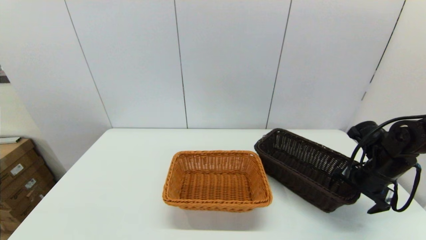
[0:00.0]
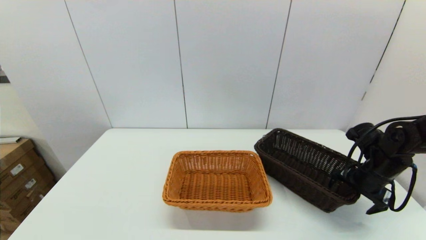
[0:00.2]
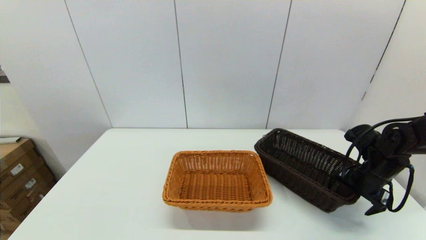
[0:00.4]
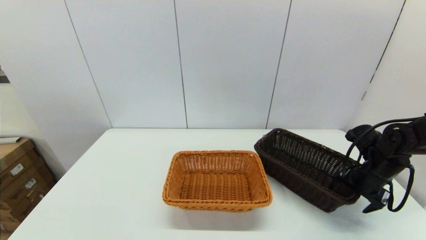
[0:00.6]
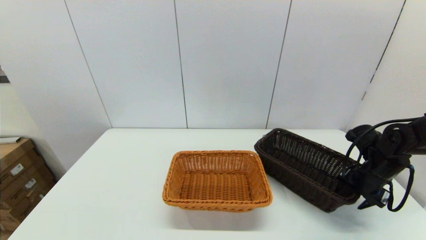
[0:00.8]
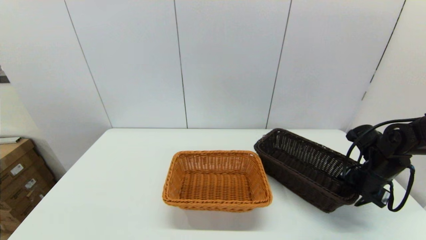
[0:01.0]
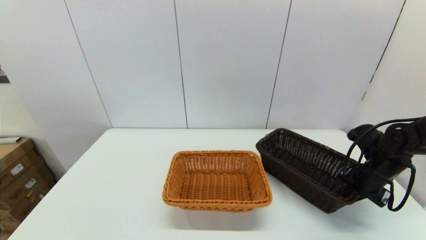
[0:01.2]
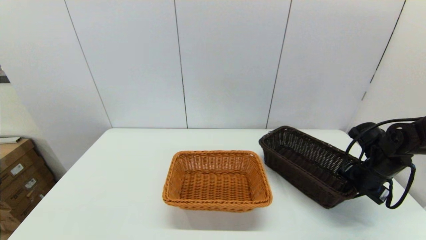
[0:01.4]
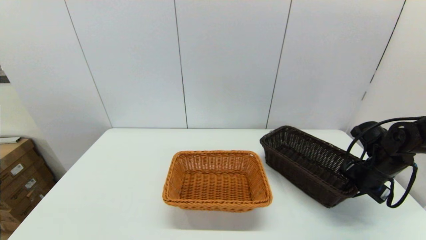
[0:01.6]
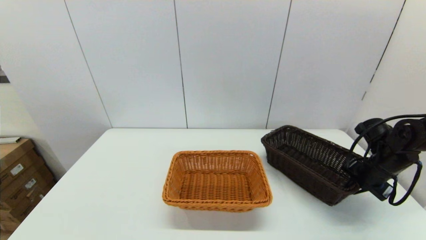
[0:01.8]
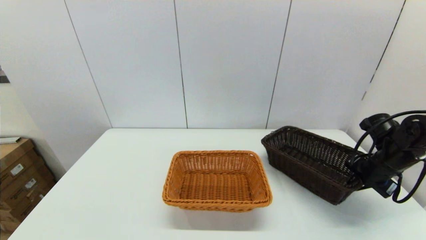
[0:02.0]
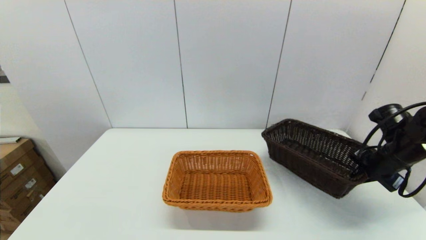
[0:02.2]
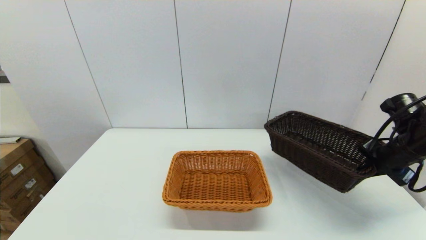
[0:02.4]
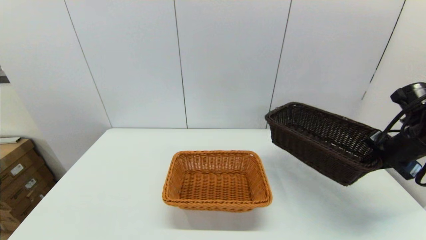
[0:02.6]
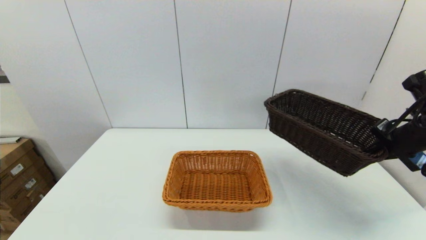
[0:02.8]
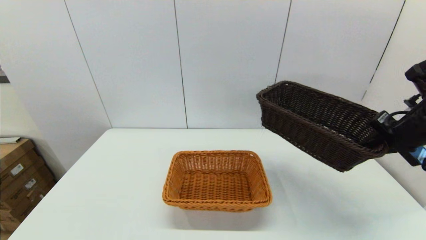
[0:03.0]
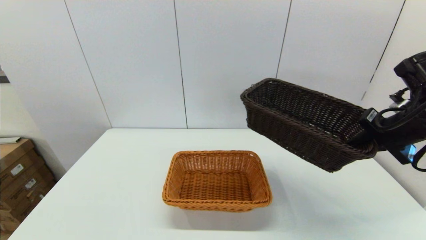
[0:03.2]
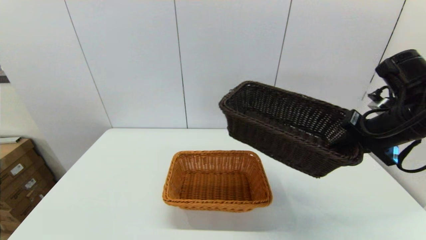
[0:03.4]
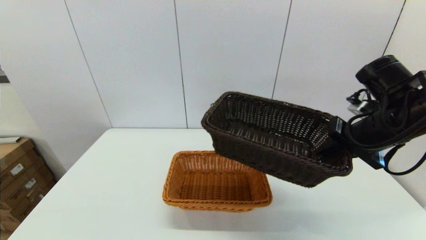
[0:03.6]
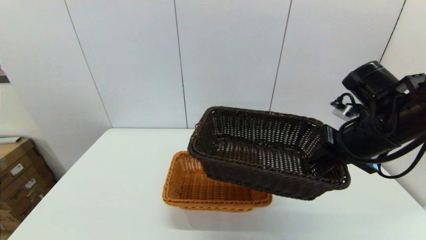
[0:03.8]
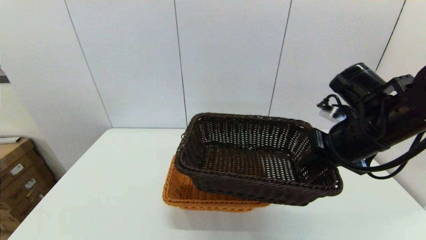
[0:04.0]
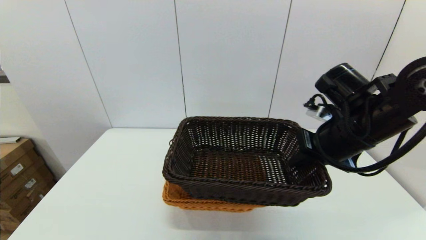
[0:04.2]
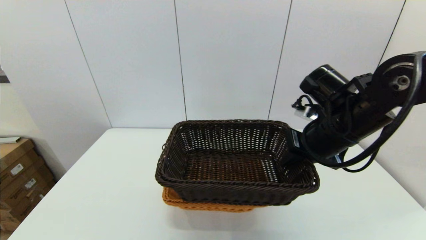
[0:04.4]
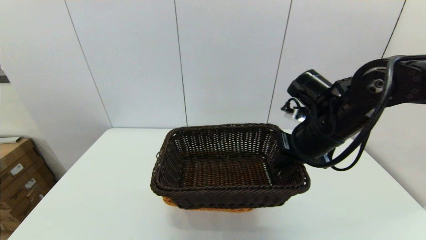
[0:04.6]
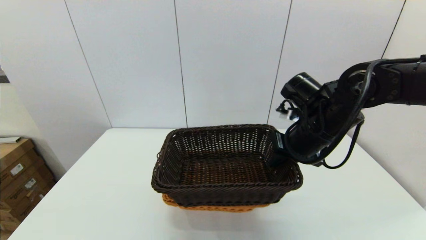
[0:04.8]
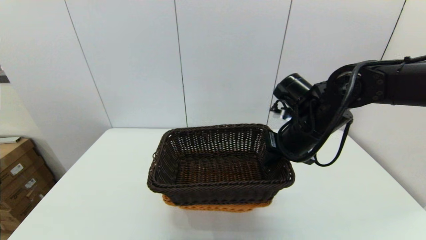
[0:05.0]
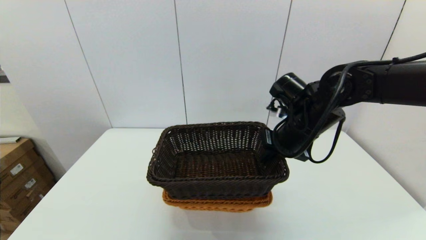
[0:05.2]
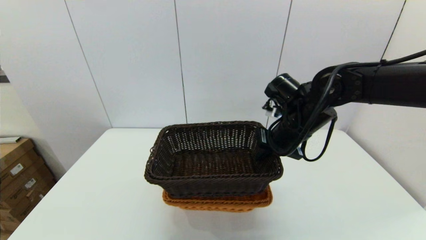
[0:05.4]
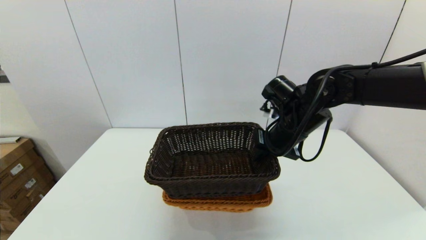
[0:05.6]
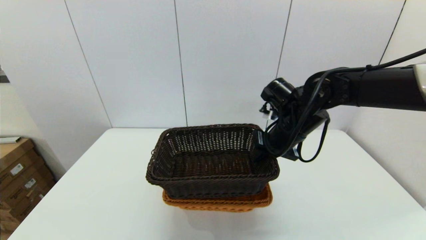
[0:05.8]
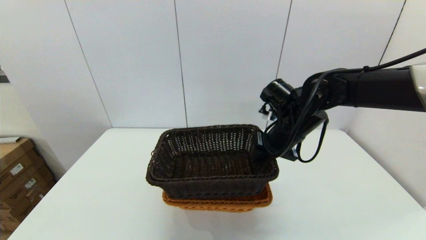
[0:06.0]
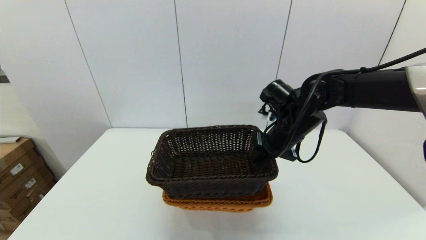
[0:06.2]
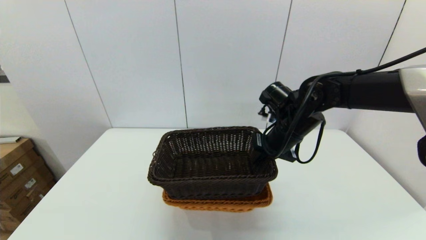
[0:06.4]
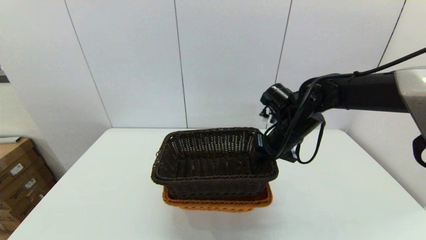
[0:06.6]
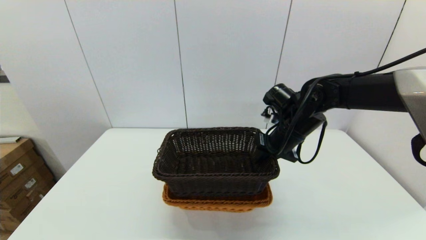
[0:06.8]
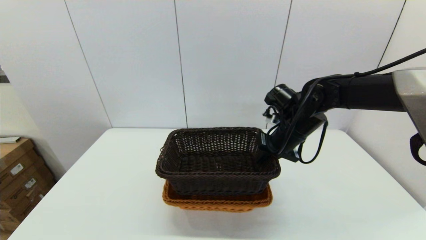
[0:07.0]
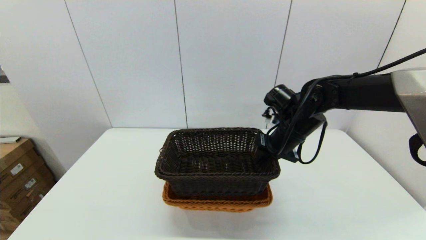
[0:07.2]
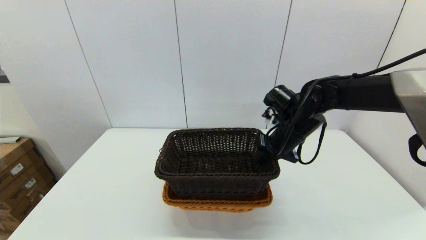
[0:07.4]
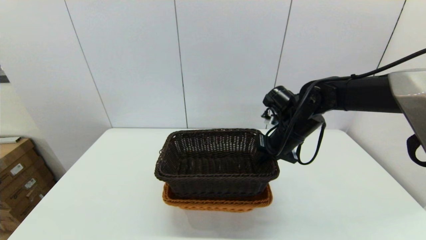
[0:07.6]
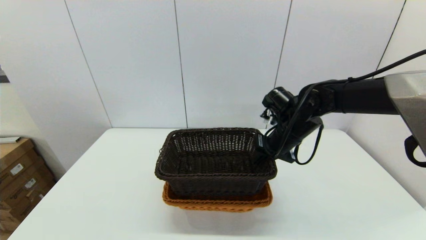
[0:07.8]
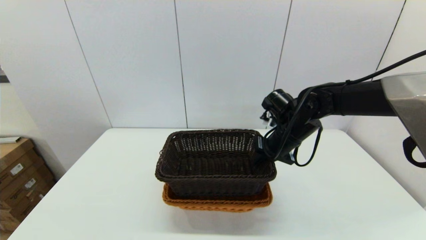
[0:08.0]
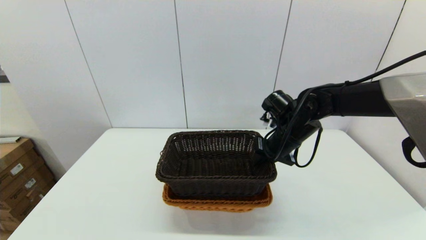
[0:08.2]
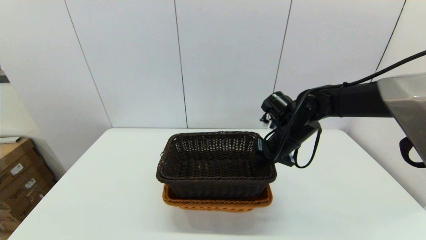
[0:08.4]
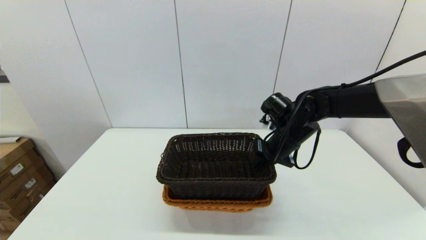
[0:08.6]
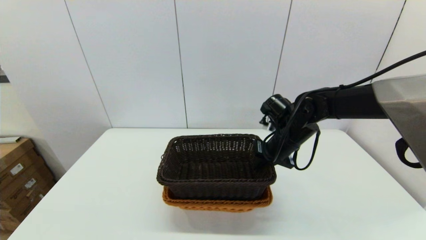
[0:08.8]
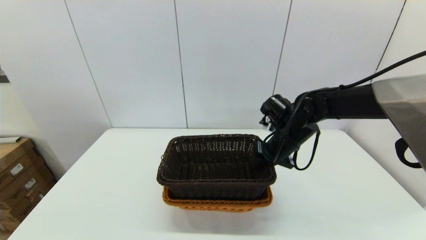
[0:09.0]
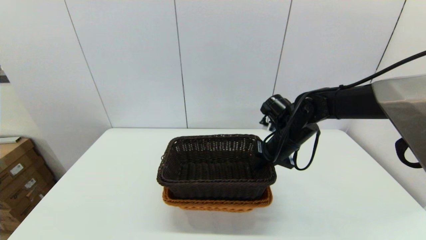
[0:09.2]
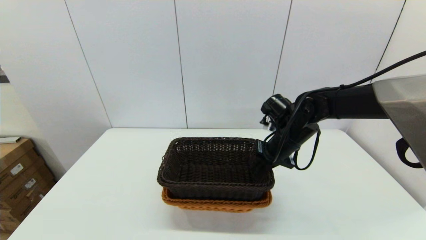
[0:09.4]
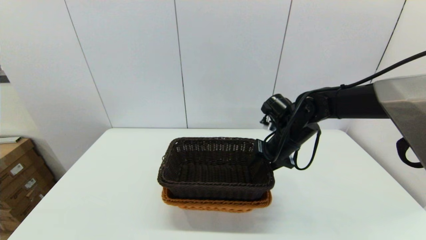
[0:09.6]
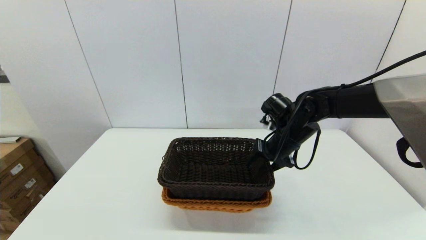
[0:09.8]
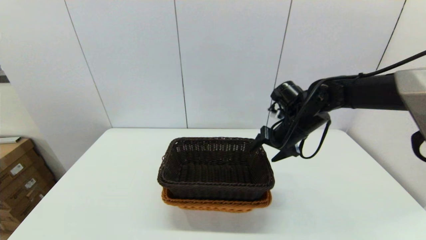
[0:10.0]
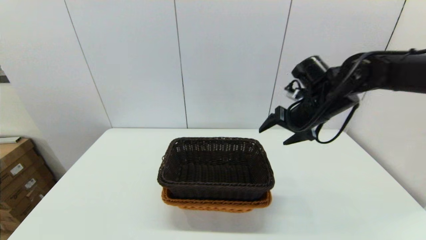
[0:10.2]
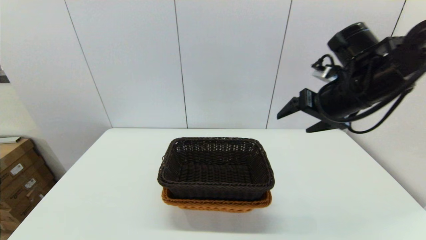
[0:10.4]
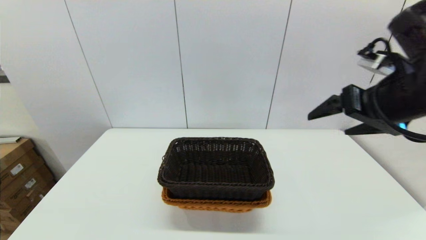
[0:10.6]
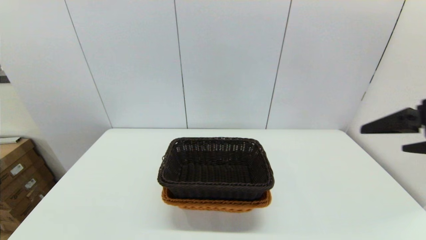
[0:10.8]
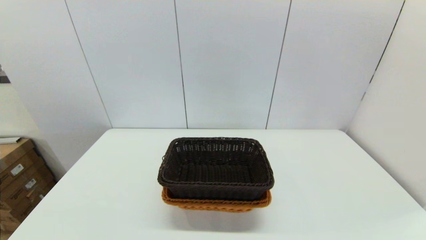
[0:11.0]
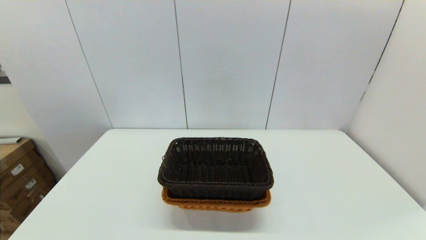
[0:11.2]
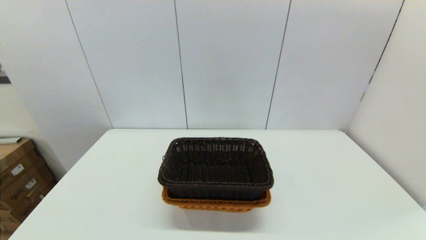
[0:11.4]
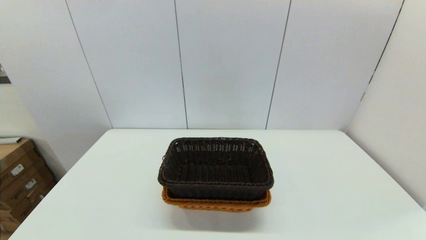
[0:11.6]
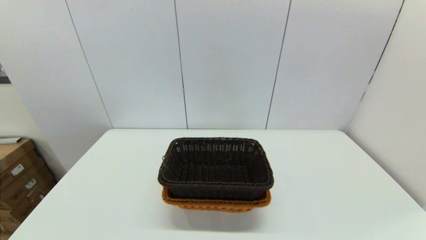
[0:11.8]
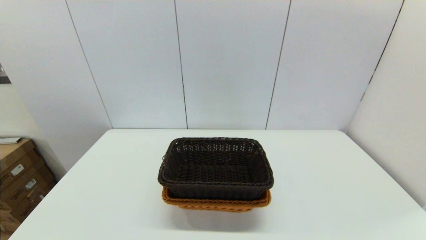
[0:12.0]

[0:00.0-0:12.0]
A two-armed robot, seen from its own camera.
Task of the whole recording: stack a basket on top of another basket.
Step, 0:01.4 to 0:10.2: Place the dark basket into the light color basket with the right gripper.
0:00.0 to 0:01.6: The right gripper closes its fingers.
0:01.6 to 0:03.0: The right gripper is displaced upward by about 15 cm.
0:03.0 to 0:04.4: The right gripper is displaced to the left by about 15 cm.
0:04.4 to 0:06.0: The right gripper heads forward, covering some 5 cm.
0:06.0 to 0:09.0: The grippers make only small movements.
0:09.0 to 0:10.4: The right gripper goes some 15 cm upward, to the right and backward, and opens up.
0:10.4 to 0:12.0: The right gripper travels backward by approximately 40 cm.

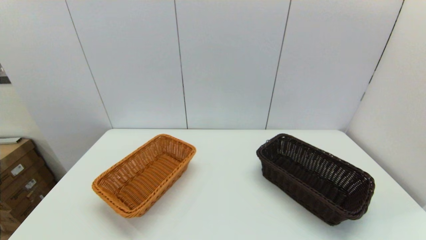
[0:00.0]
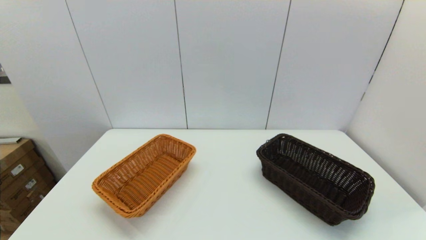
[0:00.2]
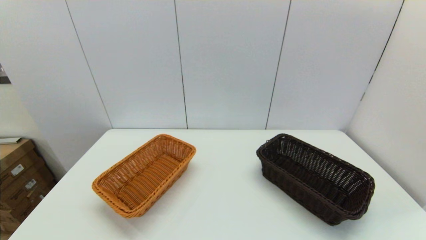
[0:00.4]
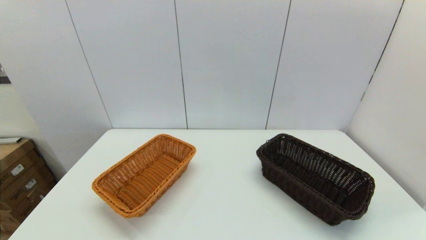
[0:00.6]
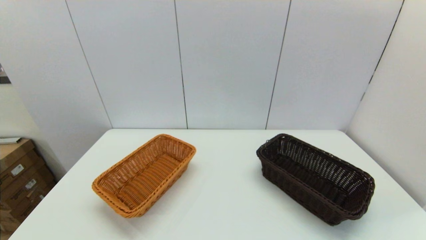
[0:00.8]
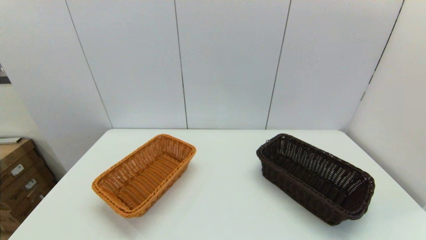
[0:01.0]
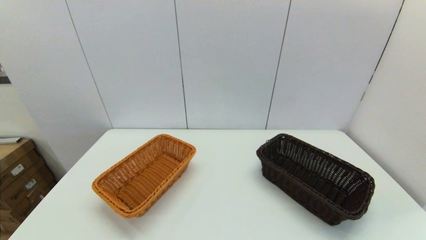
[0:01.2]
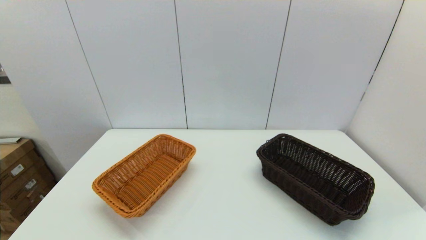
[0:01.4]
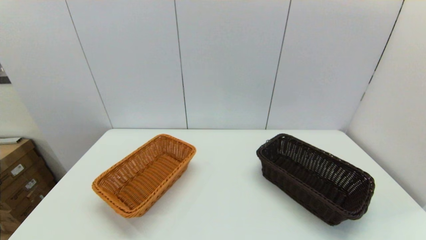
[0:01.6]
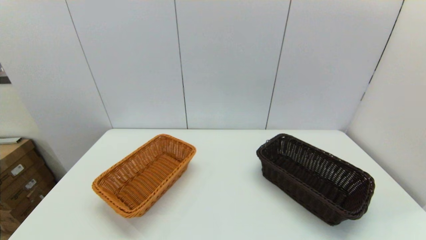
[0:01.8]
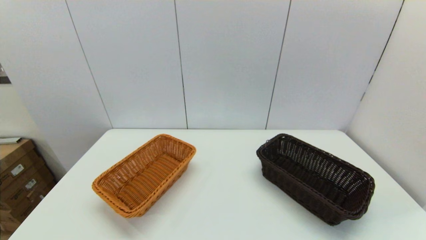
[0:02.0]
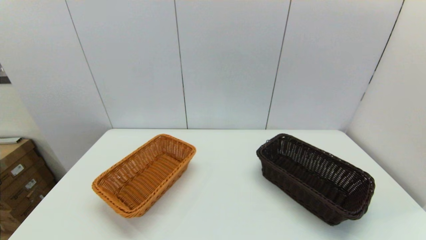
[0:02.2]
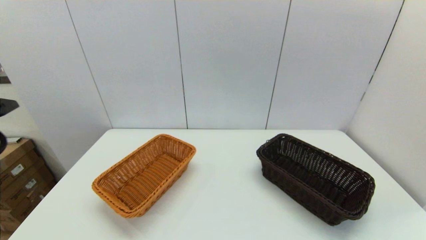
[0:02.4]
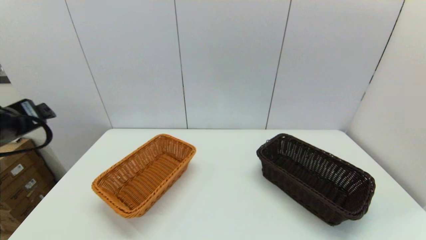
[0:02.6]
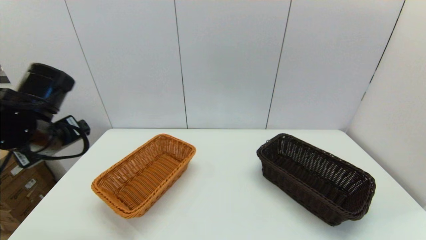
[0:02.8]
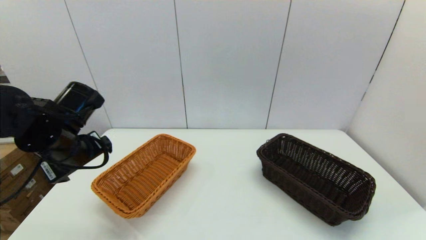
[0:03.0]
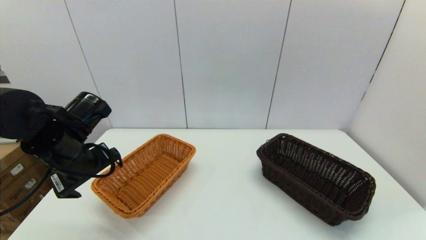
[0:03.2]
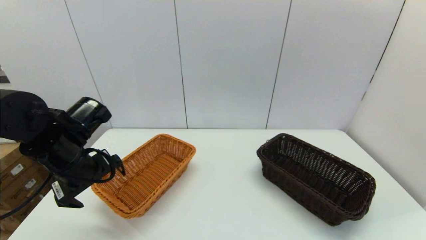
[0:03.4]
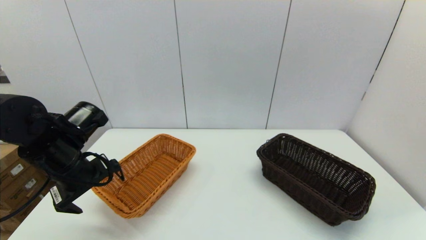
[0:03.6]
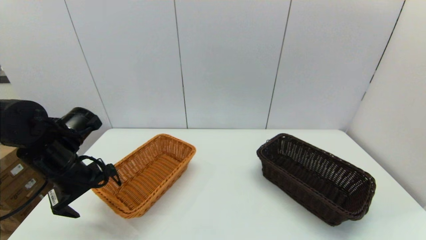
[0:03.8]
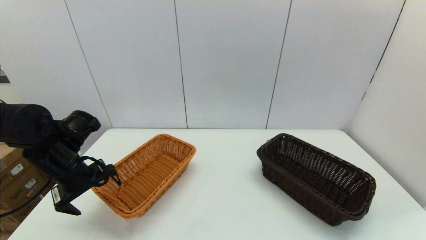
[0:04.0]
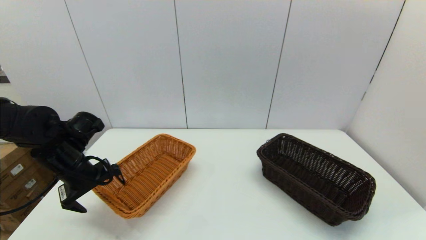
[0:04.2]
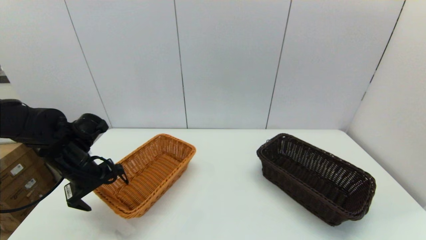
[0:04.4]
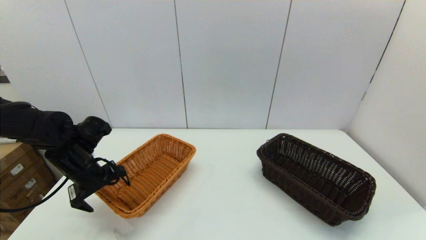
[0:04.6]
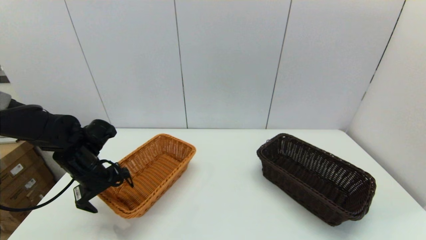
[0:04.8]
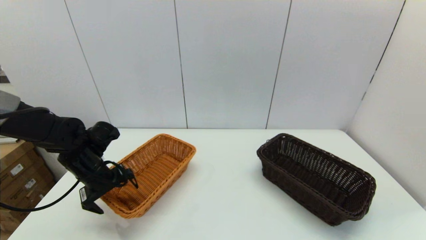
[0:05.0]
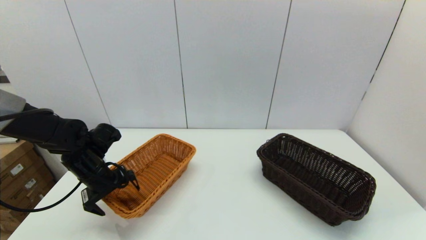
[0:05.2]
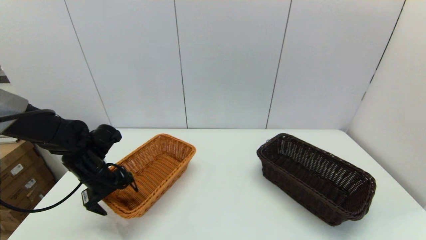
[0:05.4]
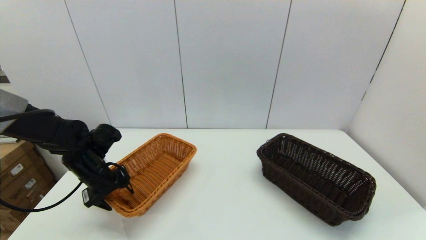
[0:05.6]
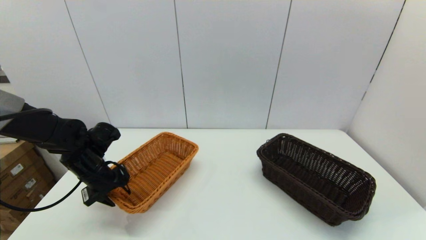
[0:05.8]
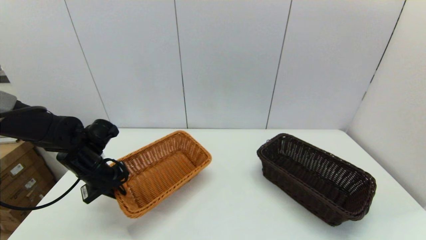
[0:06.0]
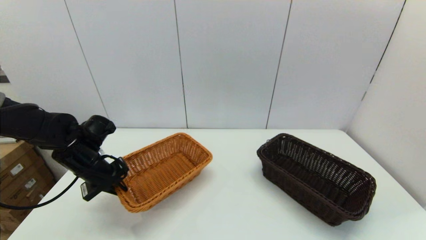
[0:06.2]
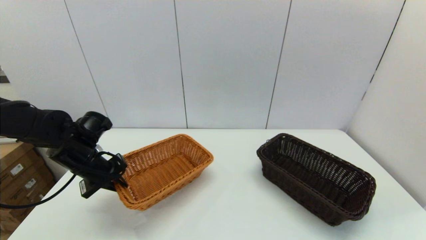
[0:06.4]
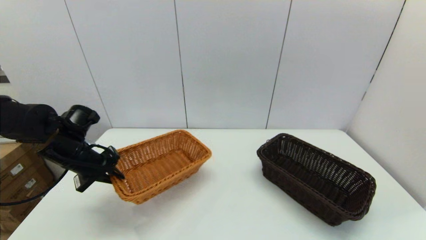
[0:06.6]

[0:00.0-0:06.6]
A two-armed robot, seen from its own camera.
Task of the whole recording: stack a basket on top of another basket.
Step, 0:02.4 to 0:05.8: Grasp the light basket with the left gripper.
0:01.6 to 0:03.2: The left gripper shifts roughly 30 cm forward.
0:03.2 to 0:05.0: The left gripper is displaced downward and forward by approximately 10 cm.
0:05.0 to 0:06.6: The left gripper ends up approximately 5 cm from where it was, and closes up.
